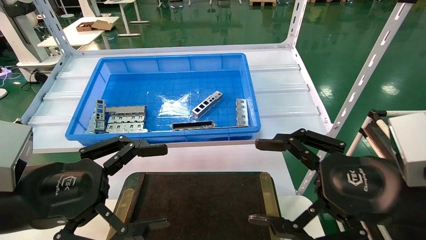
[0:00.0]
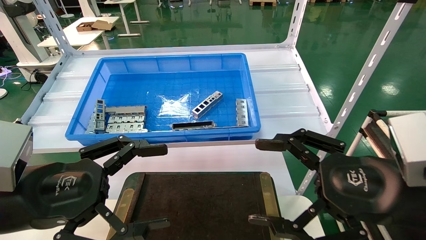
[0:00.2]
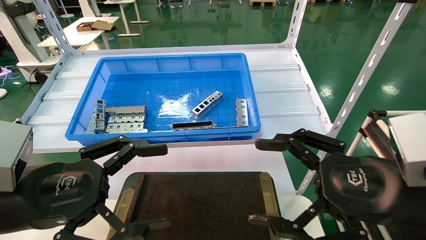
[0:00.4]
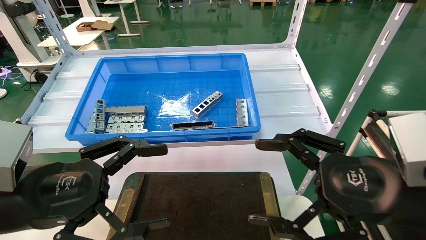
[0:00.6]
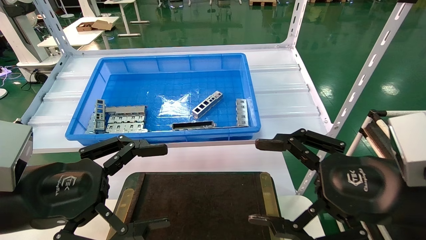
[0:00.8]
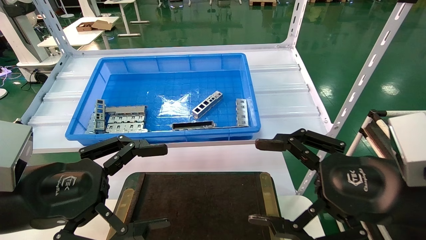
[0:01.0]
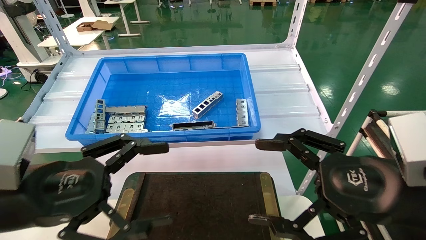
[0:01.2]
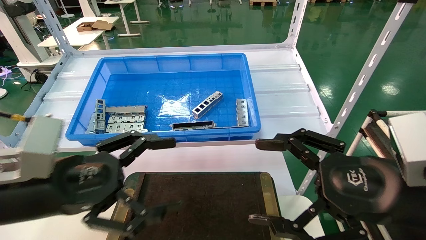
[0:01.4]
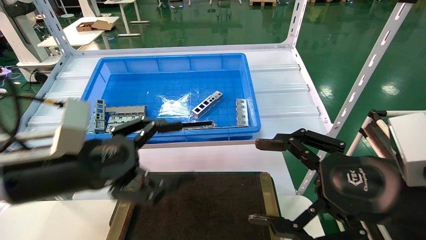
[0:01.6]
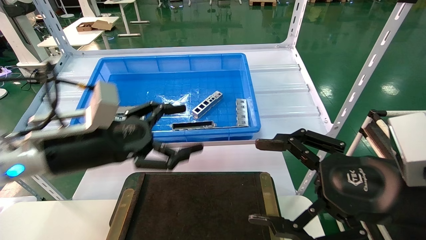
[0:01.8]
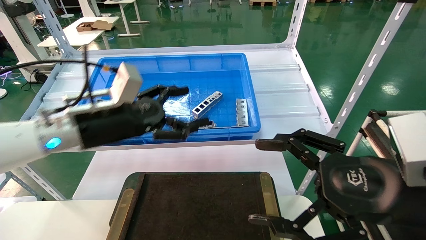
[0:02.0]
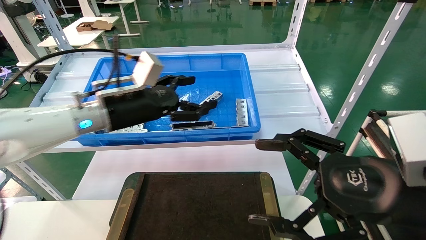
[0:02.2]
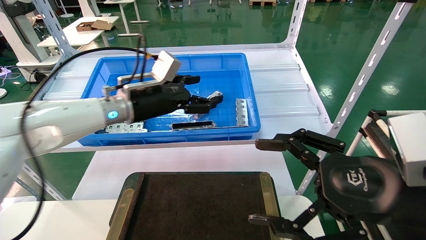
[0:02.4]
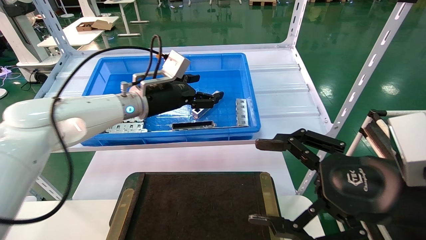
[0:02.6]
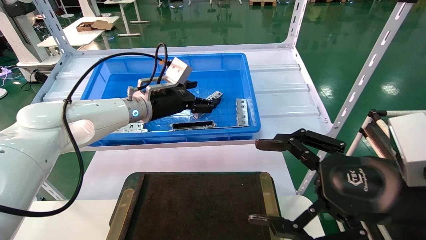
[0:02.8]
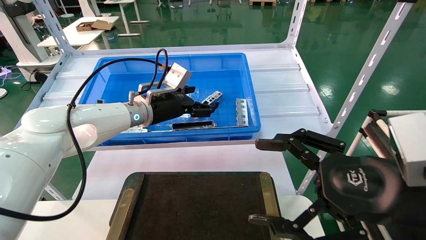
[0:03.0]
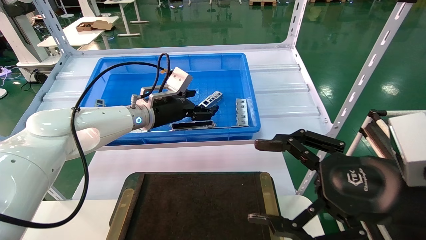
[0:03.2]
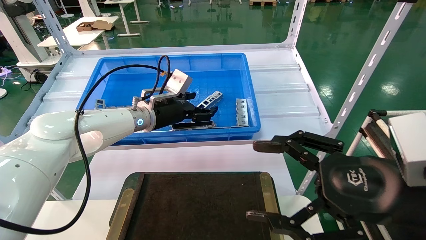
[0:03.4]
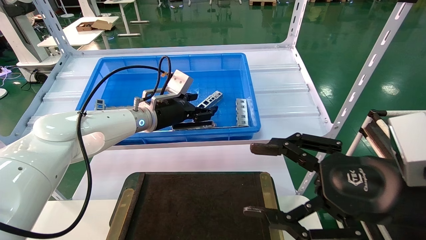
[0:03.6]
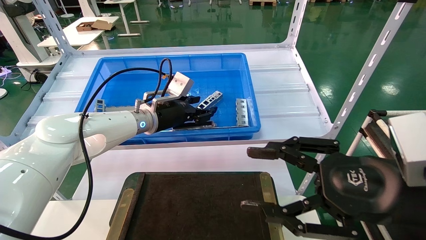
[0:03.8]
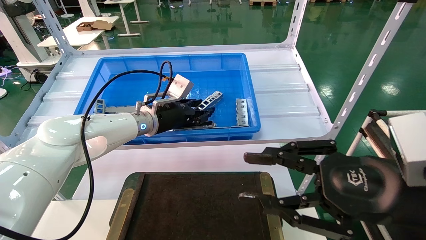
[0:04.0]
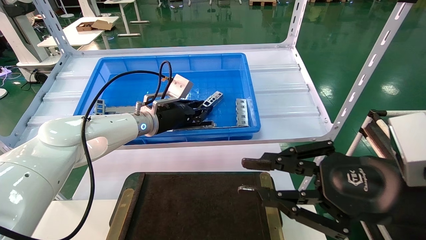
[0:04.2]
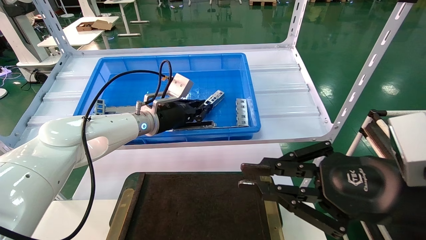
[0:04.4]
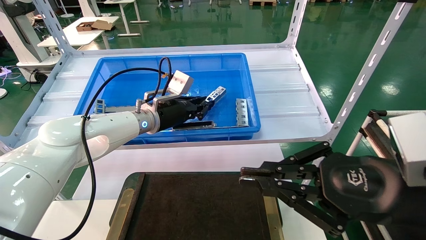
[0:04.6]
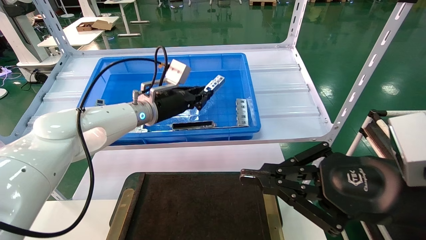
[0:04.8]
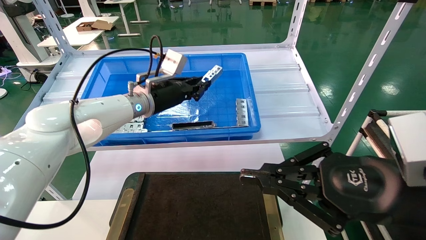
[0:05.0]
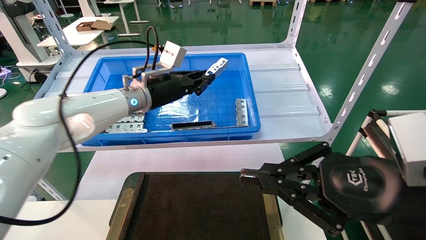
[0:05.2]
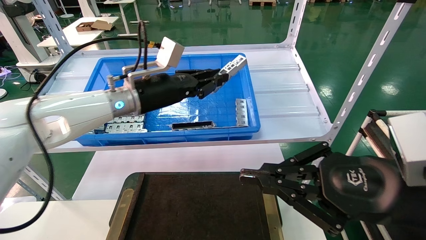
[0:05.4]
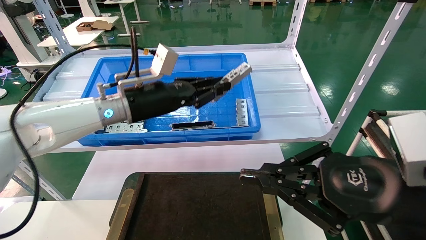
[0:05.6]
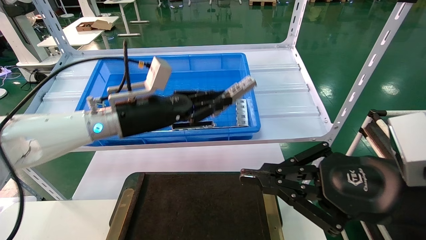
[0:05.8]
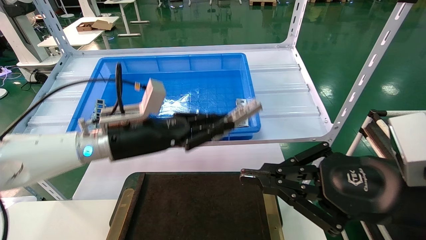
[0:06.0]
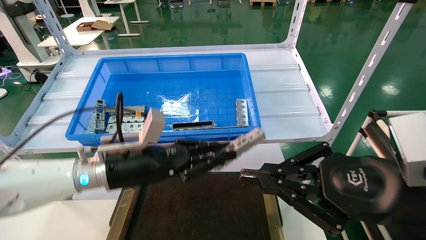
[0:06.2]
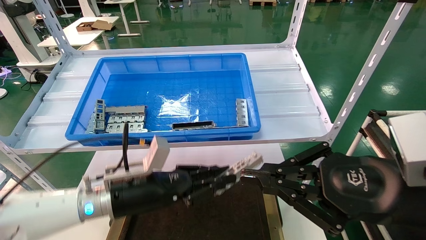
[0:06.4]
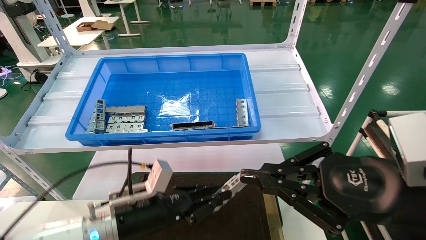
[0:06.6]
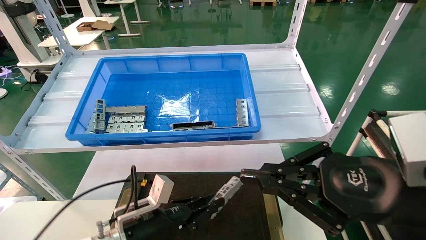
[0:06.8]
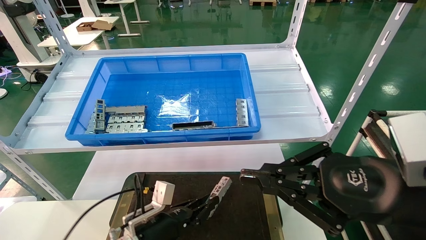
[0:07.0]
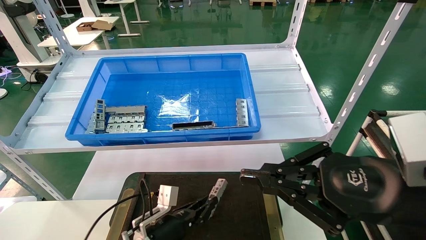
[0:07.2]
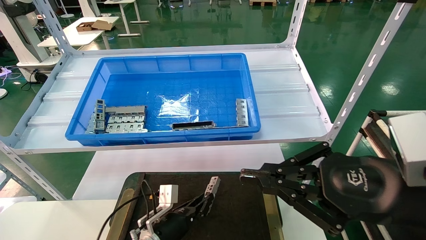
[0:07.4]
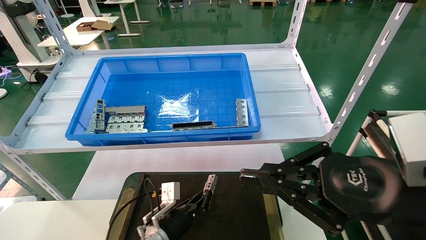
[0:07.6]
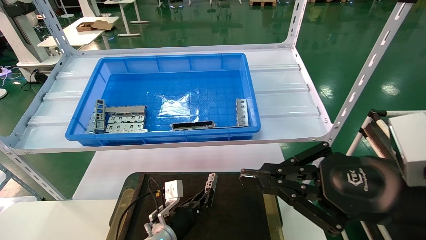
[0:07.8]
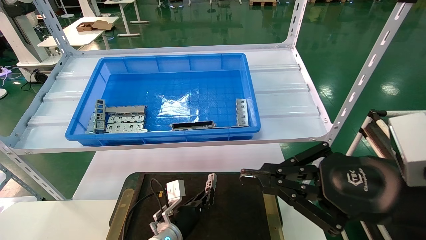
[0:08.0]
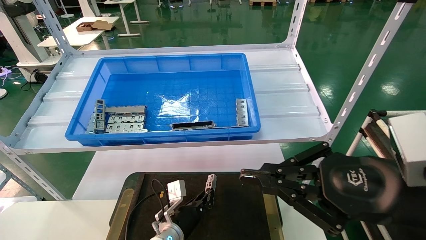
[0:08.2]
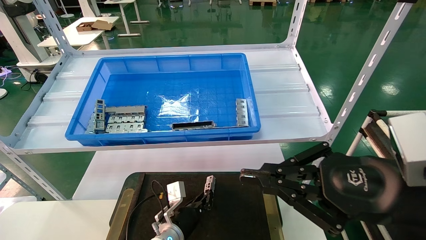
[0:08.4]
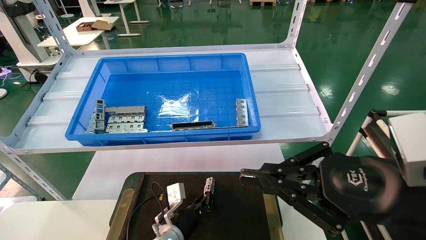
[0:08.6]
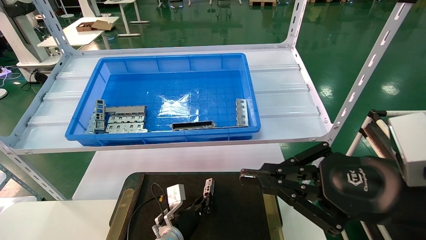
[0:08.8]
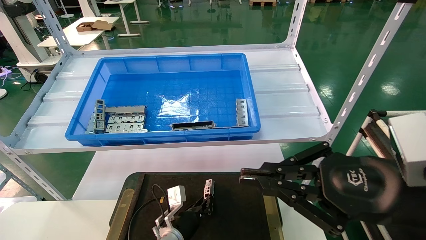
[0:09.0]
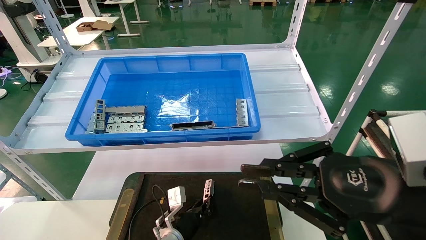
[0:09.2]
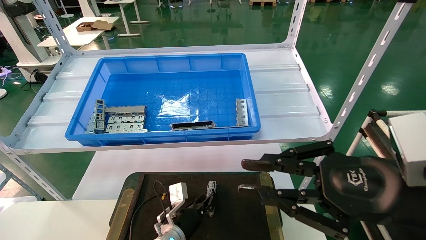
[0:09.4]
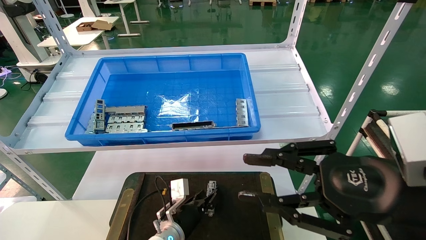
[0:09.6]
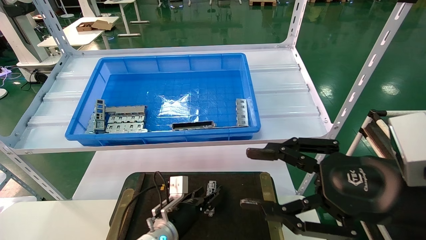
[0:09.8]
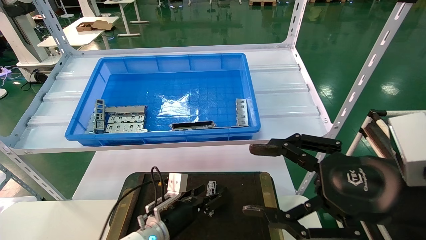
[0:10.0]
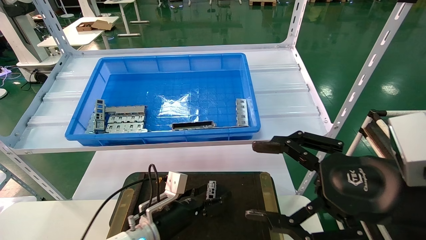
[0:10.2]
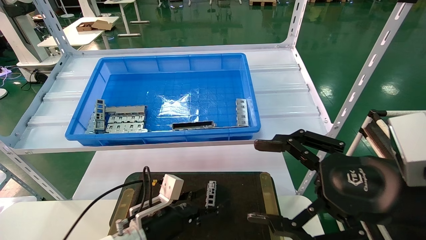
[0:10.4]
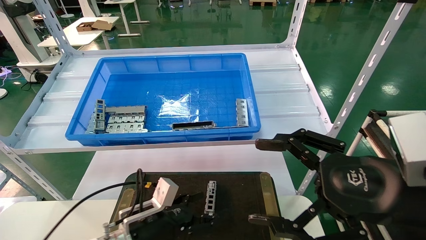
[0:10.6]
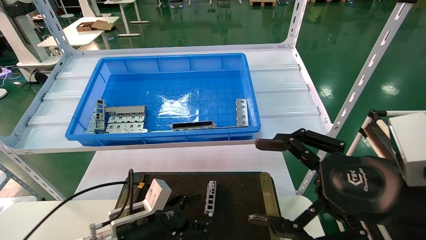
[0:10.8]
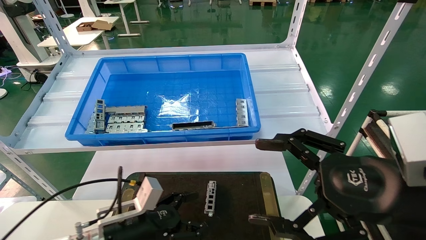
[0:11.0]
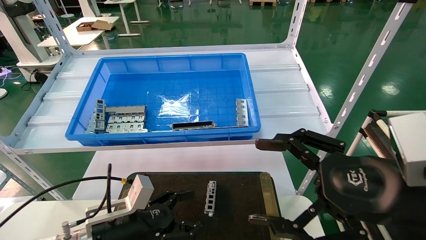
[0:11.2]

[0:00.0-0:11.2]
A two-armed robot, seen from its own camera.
Task of the whole recording: Grasp the part with one hand and place it on the black container.
Step, 0:01.6 to 0:04.2: Pick up the front USB bracket from the feeding area.
Step, 0:04.4 to 0:09.4: Place the front USB bracket into the box.
0:00.0 to 0:01.6: The left gripper travels forward by approximately 5 cm.
0:01.6 to 0:03.2: The left gripper shifts approximately 25 cm forward.
0:03.2 to 0:04.8: The right gripper closes its fingers. Meanwhile the left gripper closes its fingers.
0:04.8 to 0:06.4: The left gripper heads backward and downward, covering roughly 20 cm.
0:06.4 to 0:08.0: The left gripper shifts about 20 cm downward, to the right and forward.
0:08.0 to 0:09.6: The grippers move only a little.
0:09.6 to 0:11.2: The left gripper travels backward, to the left and upward by some 20 cm, and opens its fingers. The right gripper opens.

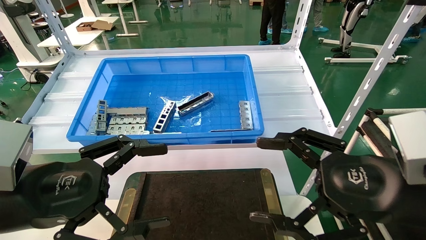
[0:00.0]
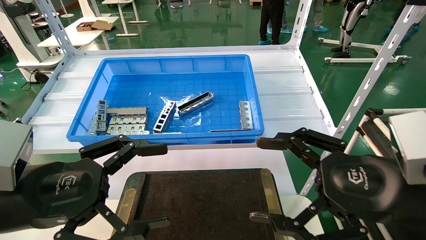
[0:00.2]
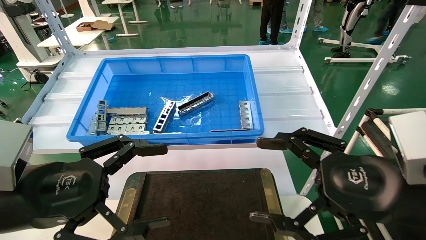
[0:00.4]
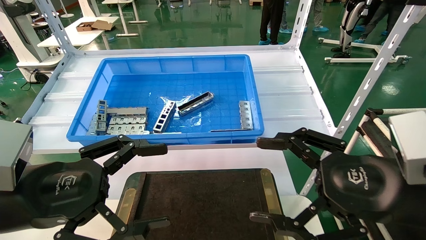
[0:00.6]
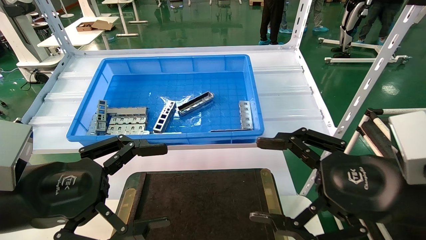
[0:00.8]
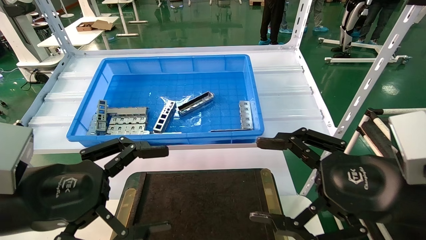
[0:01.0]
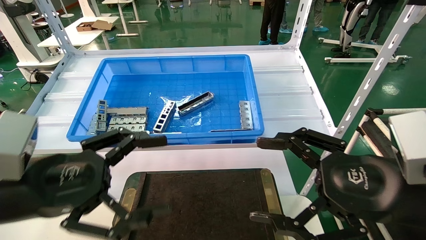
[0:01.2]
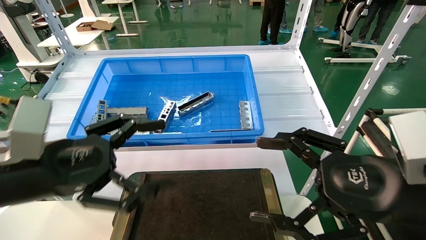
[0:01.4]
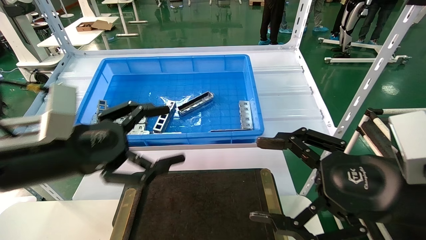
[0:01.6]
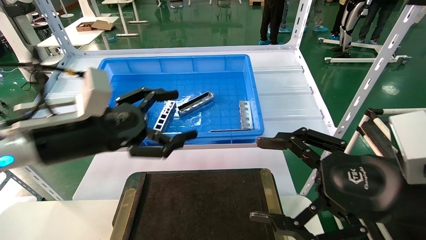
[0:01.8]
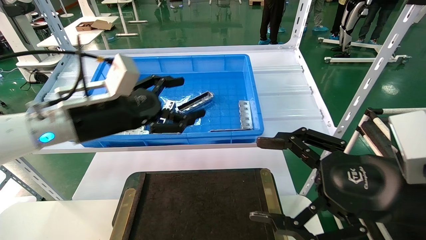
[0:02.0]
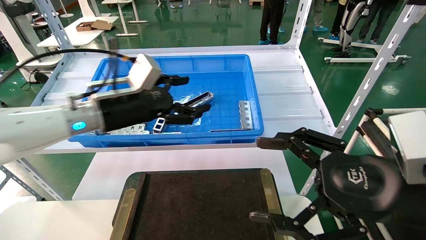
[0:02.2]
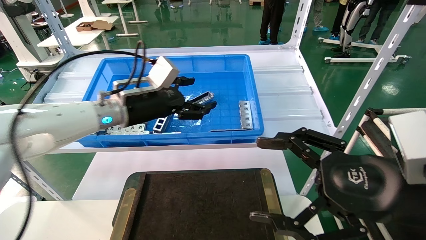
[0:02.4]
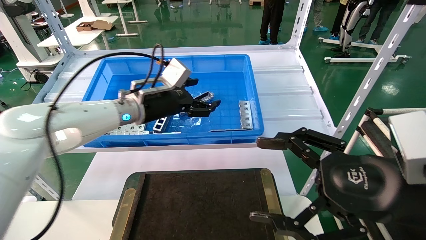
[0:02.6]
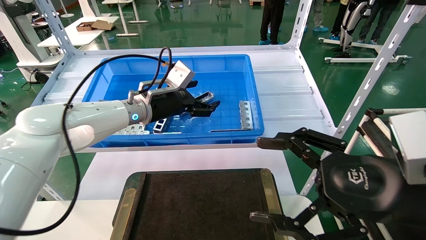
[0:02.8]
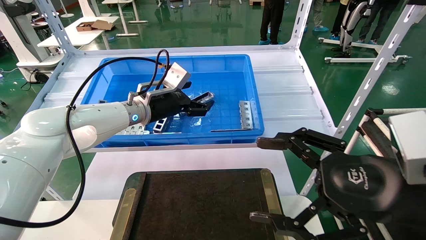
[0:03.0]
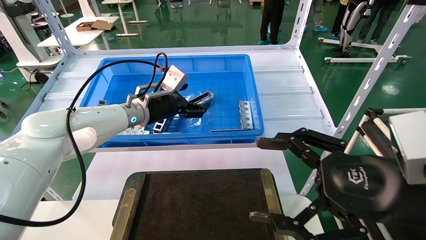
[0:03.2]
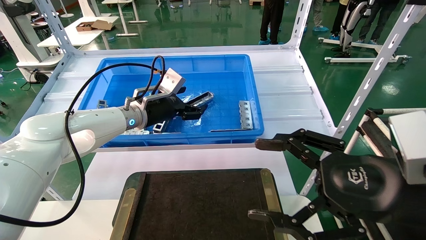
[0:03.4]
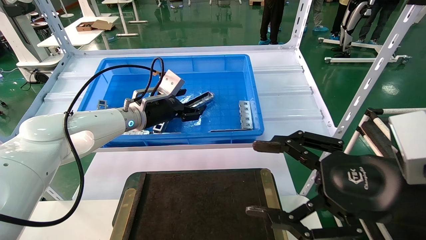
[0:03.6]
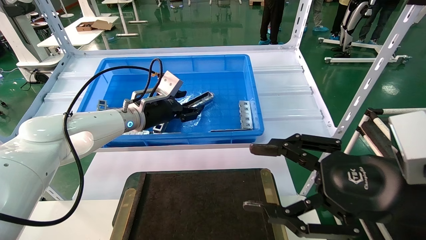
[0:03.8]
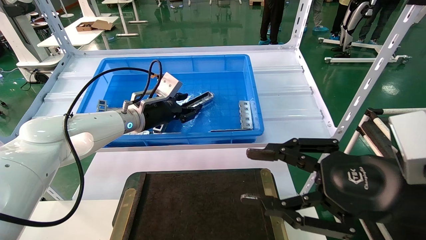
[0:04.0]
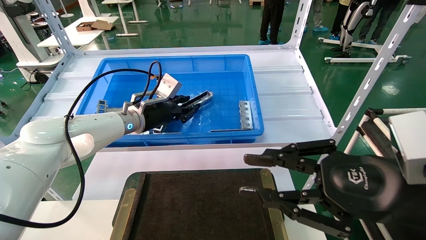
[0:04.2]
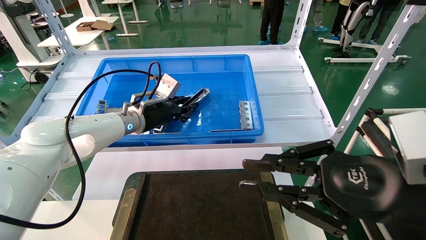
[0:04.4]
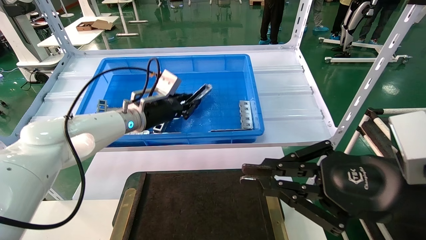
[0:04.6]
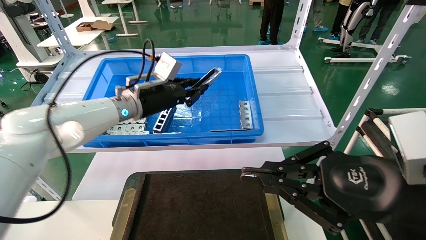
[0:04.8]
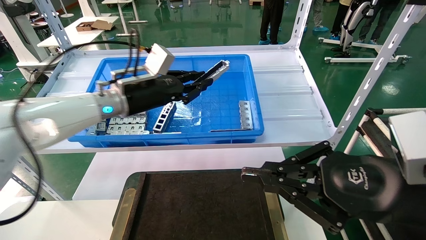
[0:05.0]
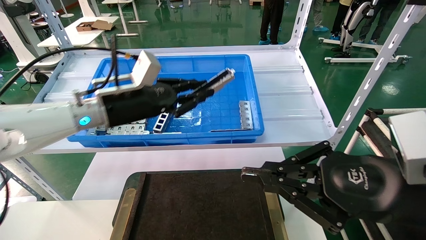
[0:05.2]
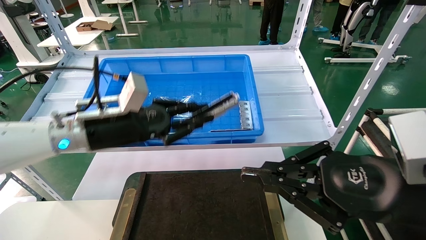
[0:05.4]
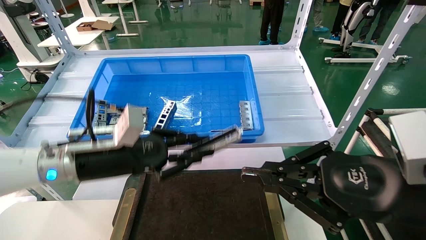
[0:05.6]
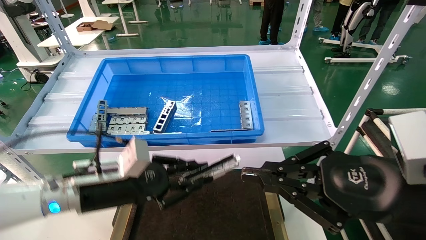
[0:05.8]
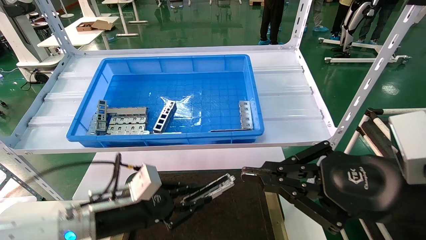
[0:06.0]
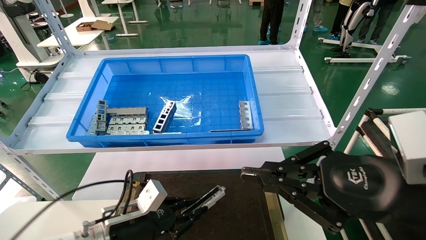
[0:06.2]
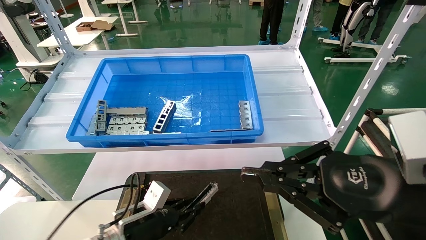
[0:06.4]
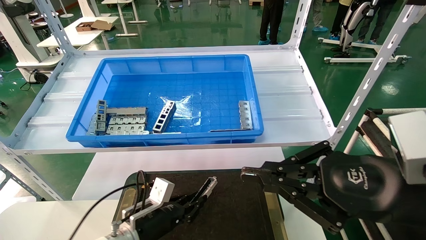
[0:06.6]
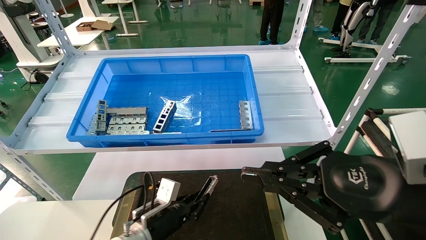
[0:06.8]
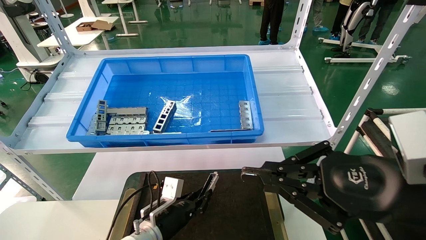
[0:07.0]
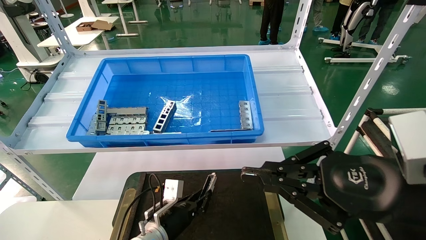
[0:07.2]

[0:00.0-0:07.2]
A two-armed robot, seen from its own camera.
Task of the whole recording: Grasp the part with one hand and place it on the black container.
Step, 0:01.6 to 0:04.8: Pick up the front USB bracket from the feeding area.
0:00.0 to 0:01.4: The grippers stay close to where they were, moving slightly.
0:01.4 to 0:02.8: The left gripper heads forward and to the right, covering roughly 25 cm.
0:02.8 to 0:04.4: The left gripper closes up. Meanwhile the right gripper closes.
0:04.4 to 0:05.8: The left gripper travels backward and downward by some 20 cm.
0:05.8 to 0:07.2: The left gripper moves downward and to the right, about 20 cm.
